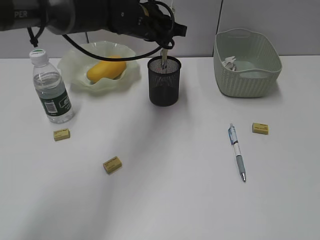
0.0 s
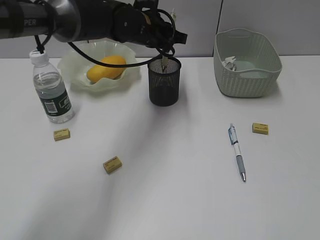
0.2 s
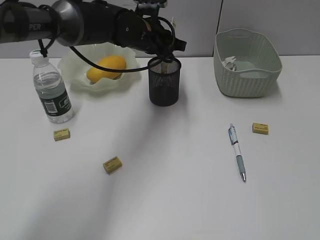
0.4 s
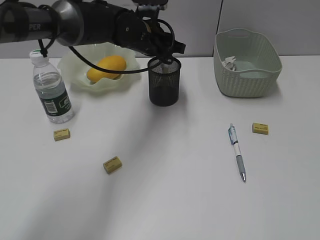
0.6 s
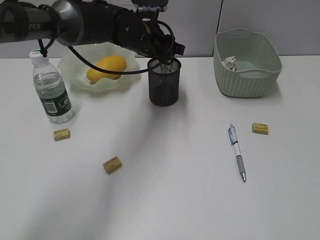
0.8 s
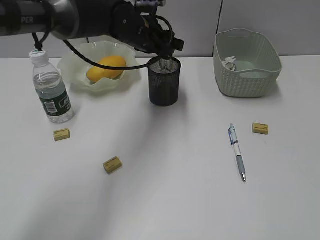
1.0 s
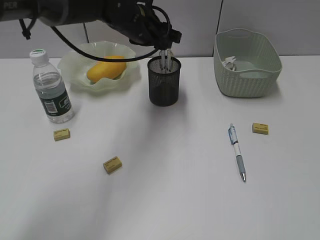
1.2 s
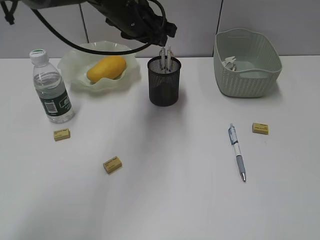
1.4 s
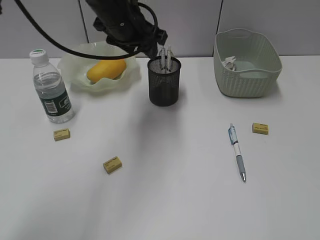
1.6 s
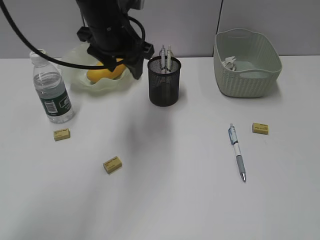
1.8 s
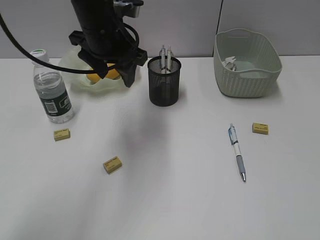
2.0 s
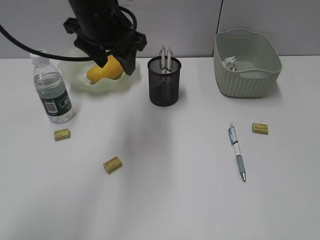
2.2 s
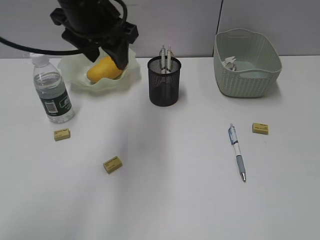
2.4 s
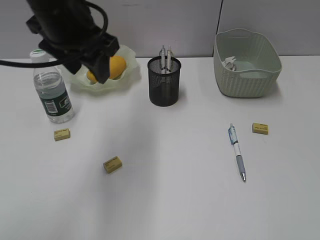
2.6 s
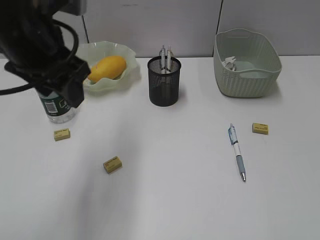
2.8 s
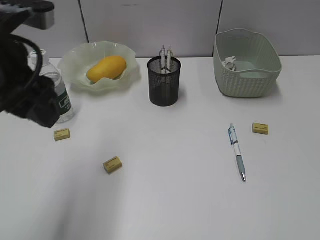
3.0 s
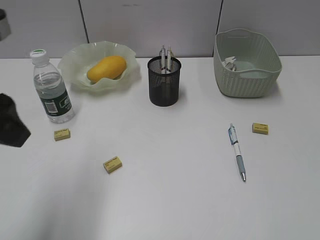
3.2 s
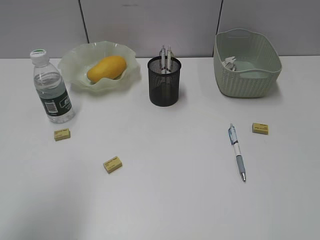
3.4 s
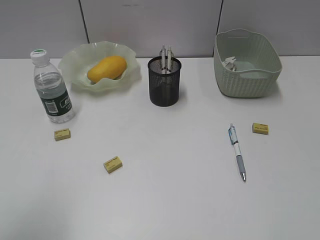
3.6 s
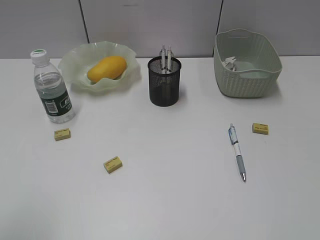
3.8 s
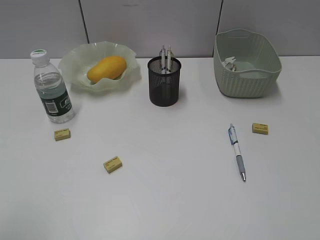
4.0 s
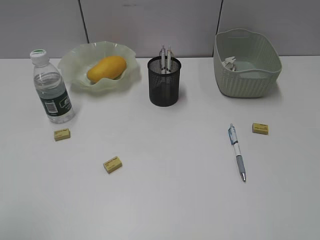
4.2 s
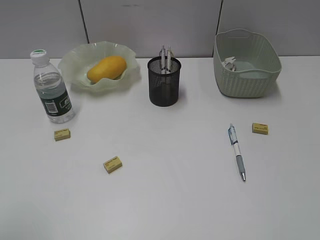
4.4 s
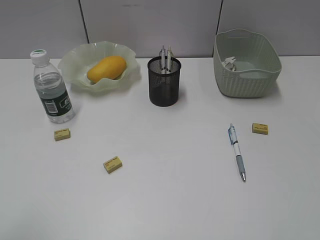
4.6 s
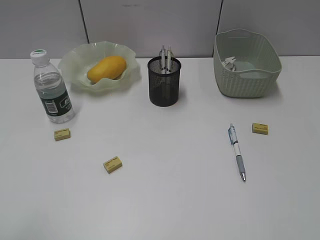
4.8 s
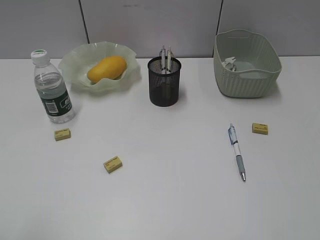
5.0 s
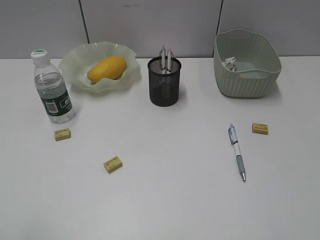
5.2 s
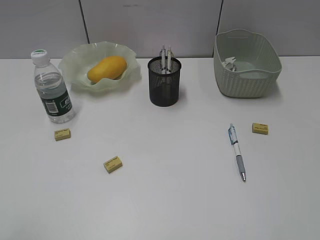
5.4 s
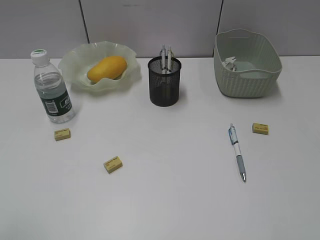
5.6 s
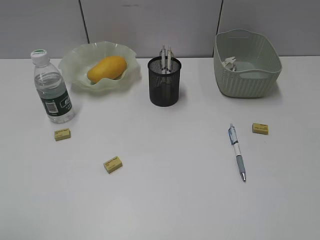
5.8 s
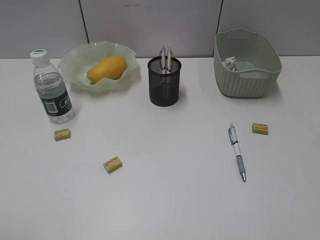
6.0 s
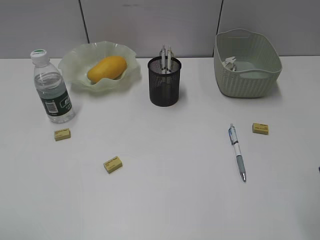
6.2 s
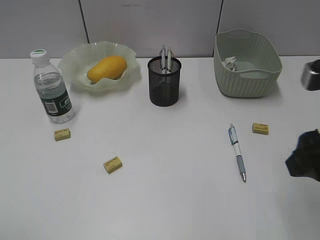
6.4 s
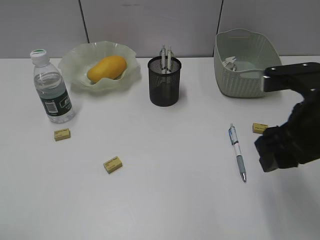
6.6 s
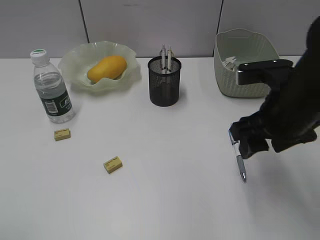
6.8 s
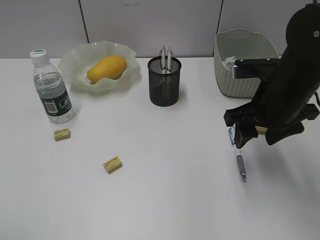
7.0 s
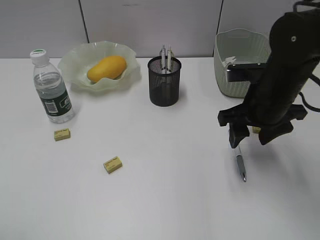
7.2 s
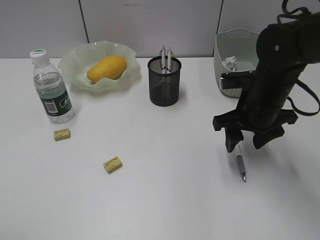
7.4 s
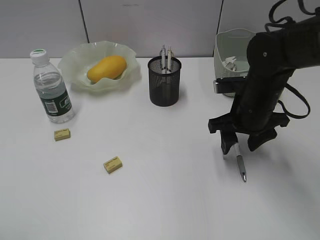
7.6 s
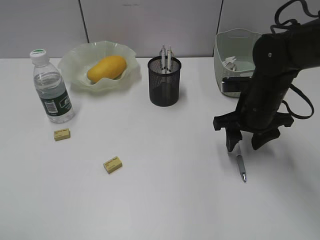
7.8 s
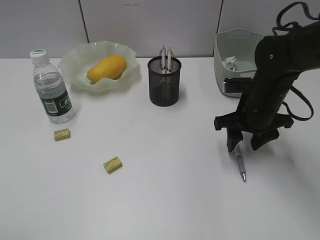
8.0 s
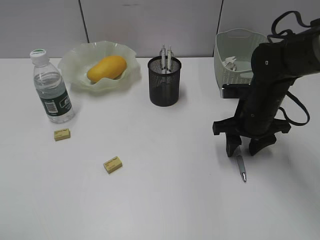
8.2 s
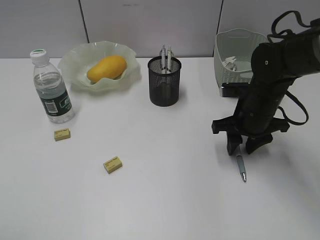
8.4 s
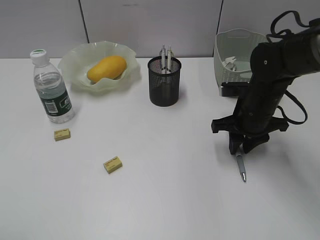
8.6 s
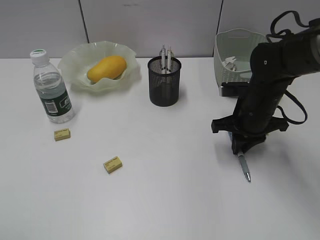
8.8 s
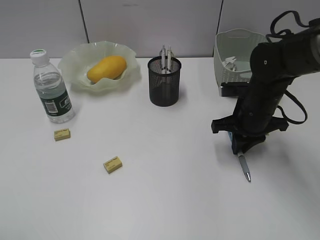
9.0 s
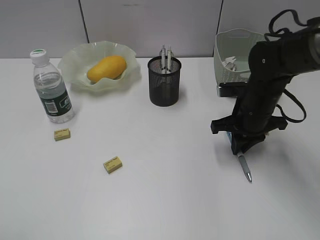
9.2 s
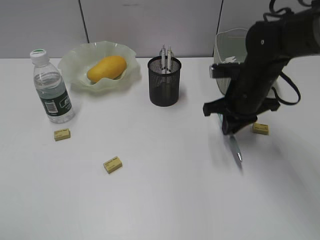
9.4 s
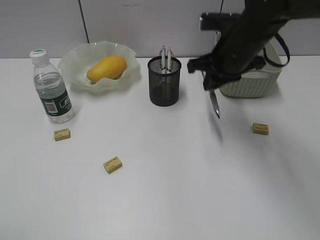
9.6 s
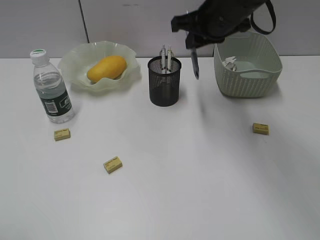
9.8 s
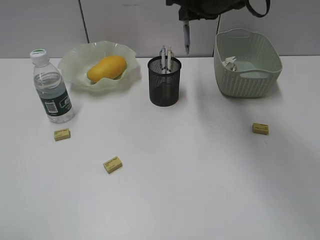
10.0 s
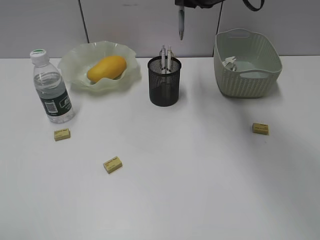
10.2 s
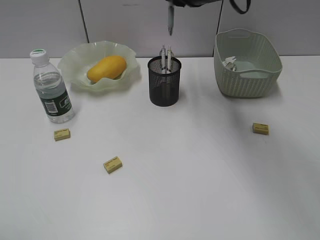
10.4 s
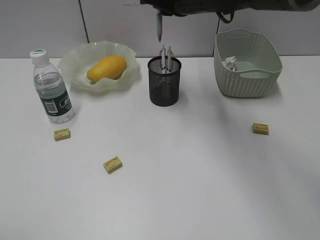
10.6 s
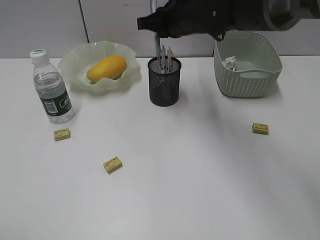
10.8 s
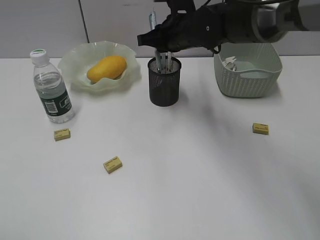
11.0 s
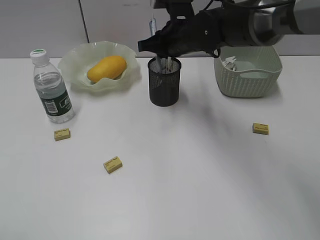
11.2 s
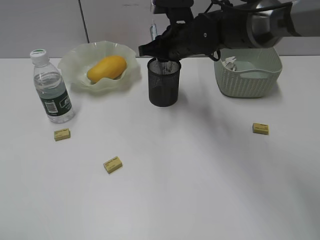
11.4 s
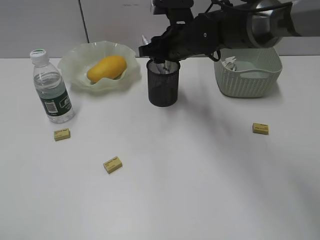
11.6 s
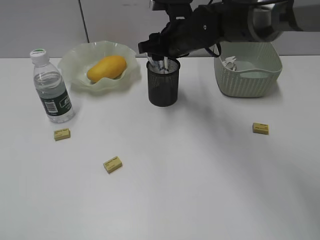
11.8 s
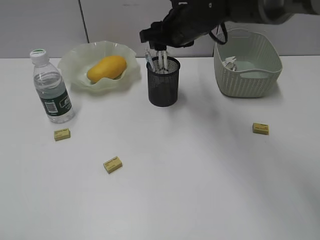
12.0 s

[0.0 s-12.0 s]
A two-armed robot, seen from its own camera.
Step, 1.2 to 9.0 s: Grasp the blue pen with right gripper.
Step, 9.2 to 11.8 s: Place the blue pen in pen holder with right gripper.
0.0 to 1.6 s: The left gripper moves roughly 5 cm, and opens up.
1.6 to 3.0 s: The left gripper shifts about 20 cm backward and to the left.
3.0 to 4.4 s: The left gripper is displaced backward and to the left by some 20 cm.
6.0 to 7.6 s: The right gripper goes some 35 cm forward, downward and to the left.
7.6 to 9.0 s: The right gripper closes up.
9.0 to 10.4 s: The right gripper travels upward, to the left and forward by some 20 cm.
10.4 to 12.0 s: The right gripper shifts approximately 5 cm downward, and opens its fingers.

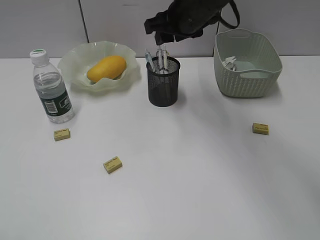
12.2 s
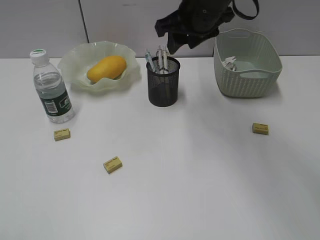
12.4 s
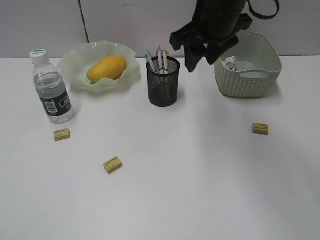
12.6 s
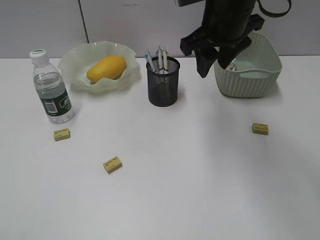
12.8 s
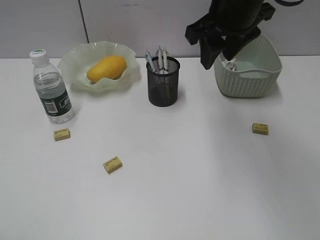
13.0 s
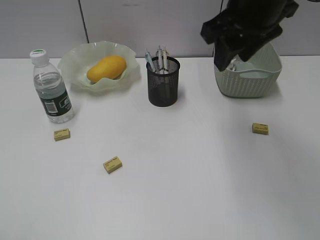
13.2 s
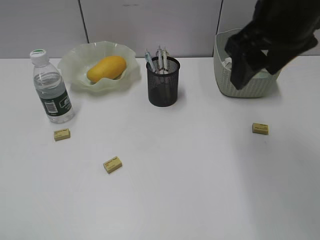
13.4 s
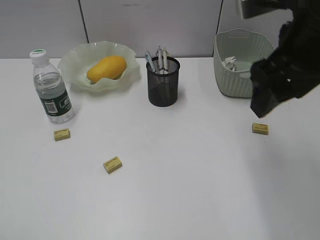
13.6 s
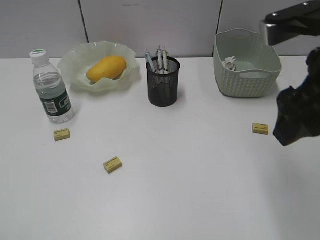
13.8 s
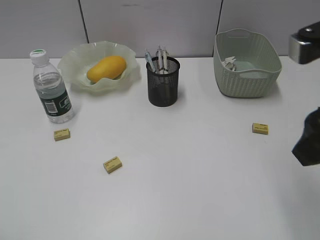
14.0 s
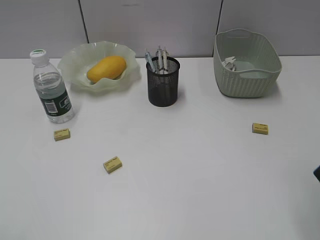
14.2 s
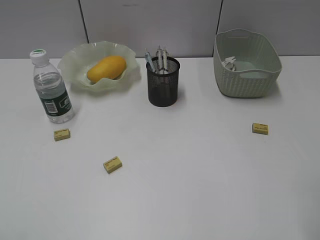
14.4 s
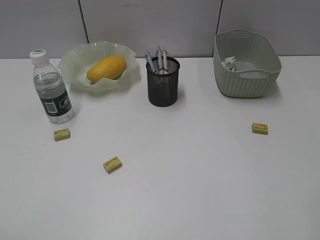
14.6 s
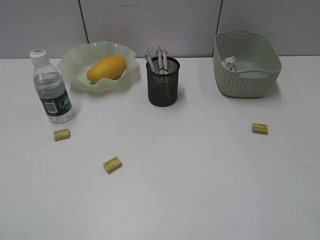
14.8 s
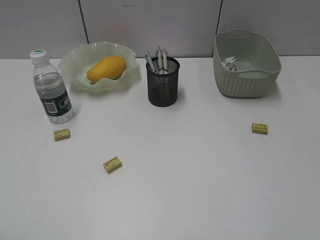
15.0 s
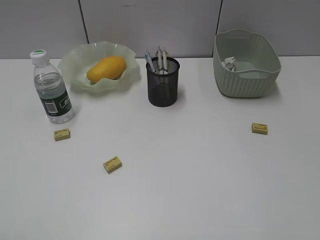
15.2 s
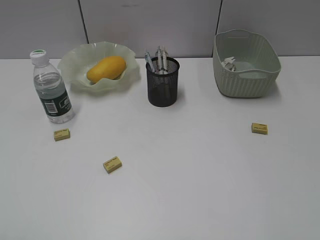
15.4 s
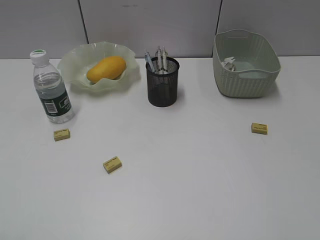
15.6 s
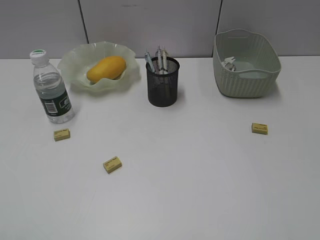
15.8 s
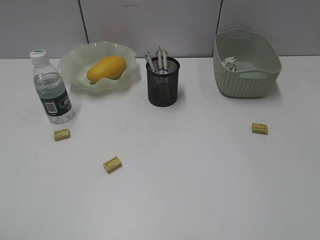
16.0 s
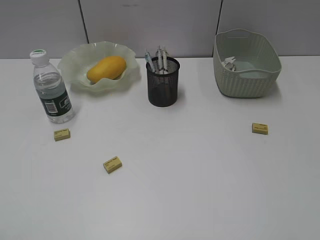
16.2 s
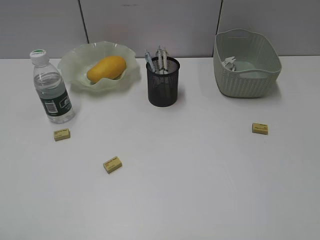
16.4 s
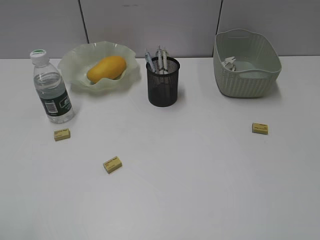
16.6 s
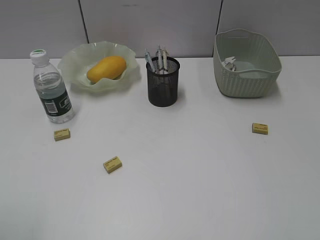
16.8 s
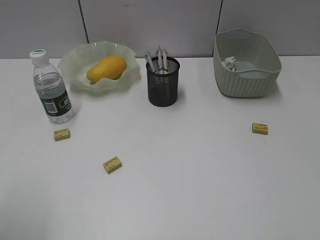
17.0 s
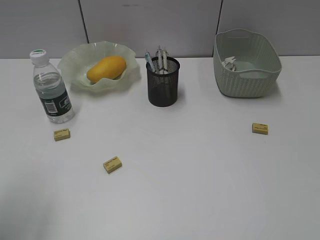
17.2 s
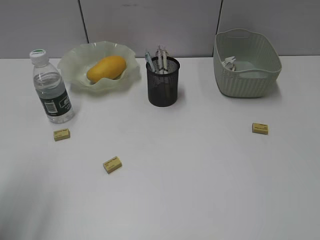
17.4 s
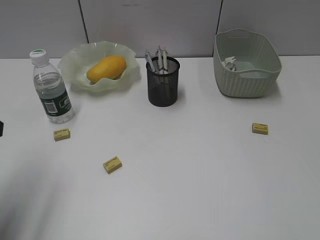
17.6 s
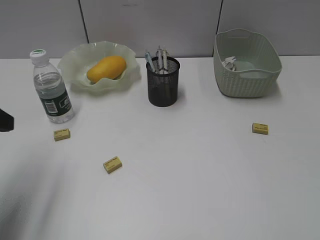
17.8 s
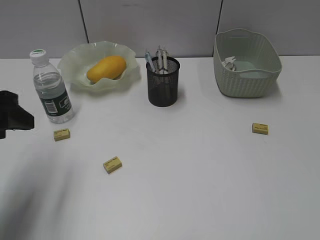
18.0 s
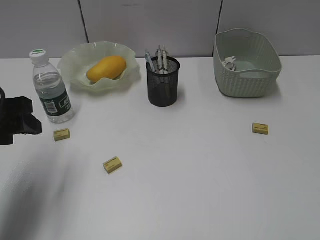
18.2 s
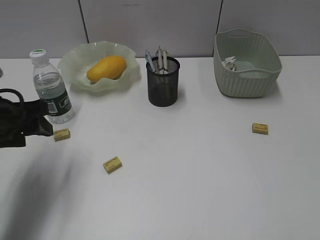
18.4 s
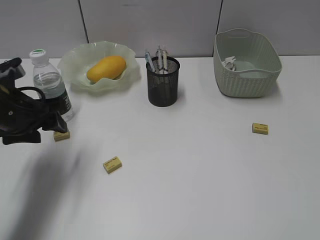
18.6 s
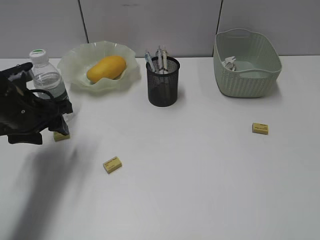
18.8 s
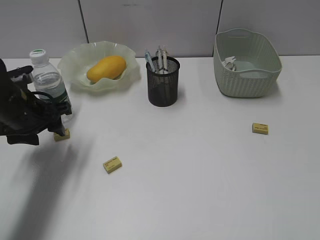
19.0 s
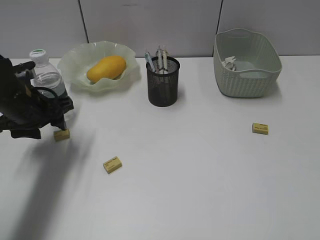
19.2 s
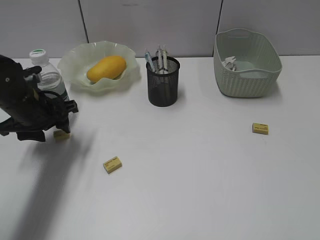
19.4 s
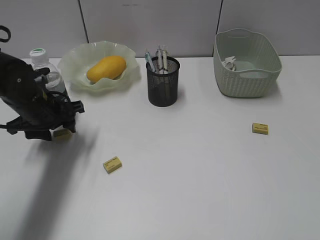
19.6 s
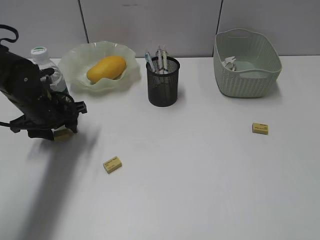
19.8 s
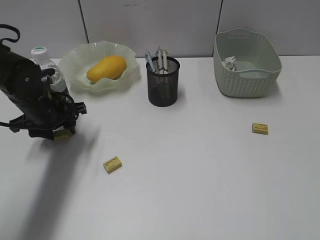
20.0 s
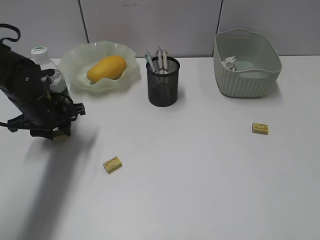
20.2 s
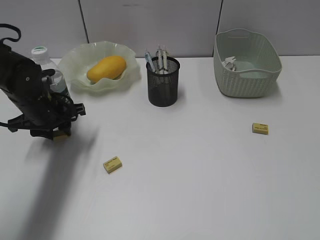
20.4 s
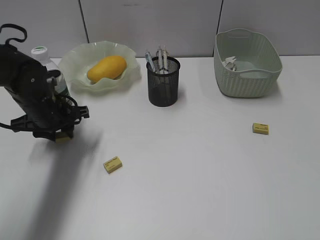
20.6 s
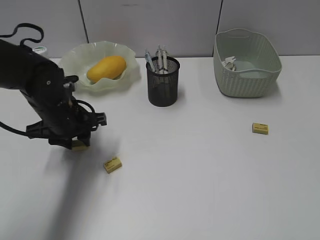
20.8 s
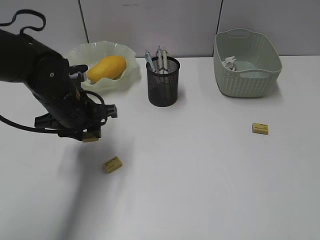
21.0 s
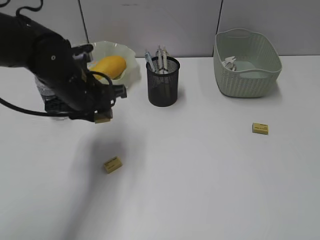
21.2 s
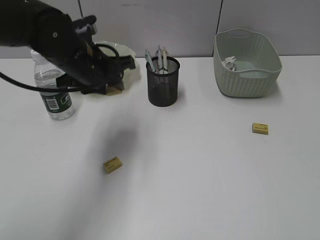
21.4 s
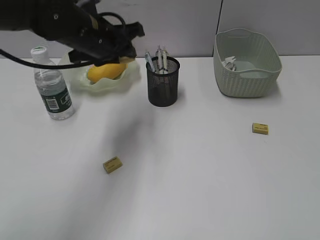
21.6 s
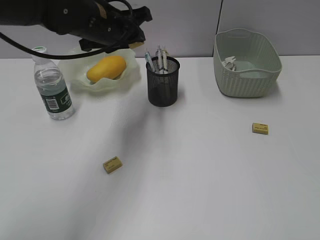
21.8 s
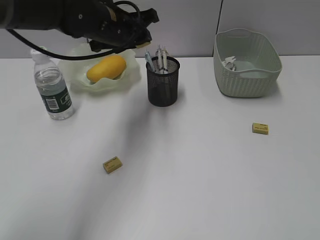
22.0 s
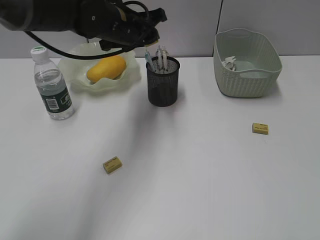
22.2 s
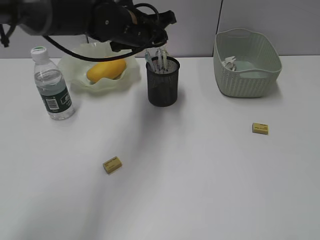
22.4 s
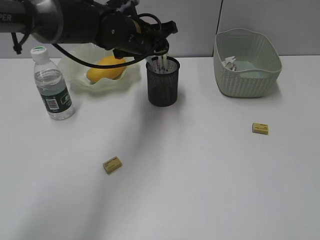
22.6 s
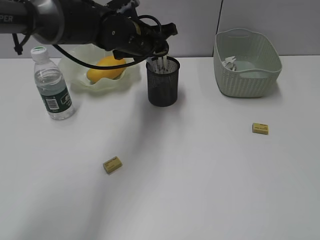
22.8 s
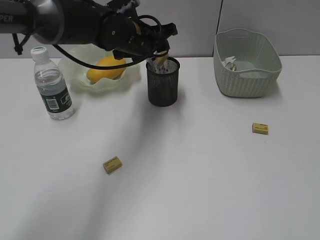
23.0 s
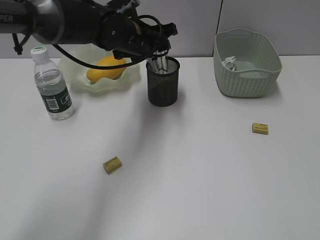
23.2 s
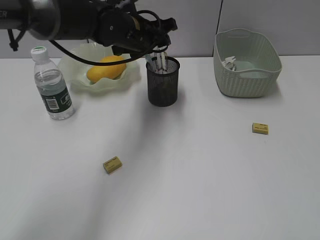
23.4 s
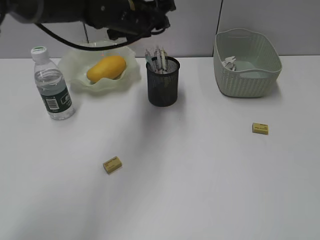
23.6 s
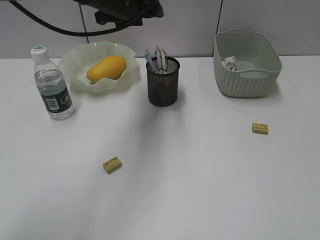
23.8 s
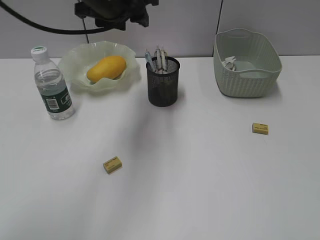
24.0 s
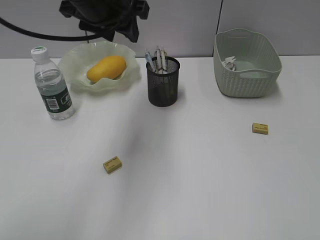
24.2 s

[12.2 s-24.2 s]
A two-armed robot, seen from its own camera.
Step, 12.2 to 20.4 s: Grasp the eraser with left gripper.
Step, 20.6 to 23.2 s: Place the eraser in pen holder with left gripper.
12.2 to 13.8 s: The right gripper shifts some 25 cm backward and to the right, and opens its fingers.
13.8 to 15.2 s: The right gripper shifts about 20 cm backward and to the right.
16.6 to 18.2 s: The left gripper moves forward, approximately 25 cm.
18.2 to 19.8 s: The left gripper heads forward and downward, covering about 15 cm.
19.8 to 21.2 s: The left gripper goes roughly 10 cm to the right and upward.
21.2 to 22.6 s: The left gripper heads forward and to the right, covering about 15 cm.
22.6 to 24.2 s: The left gripper shifts about 15 cm upward and backward.
